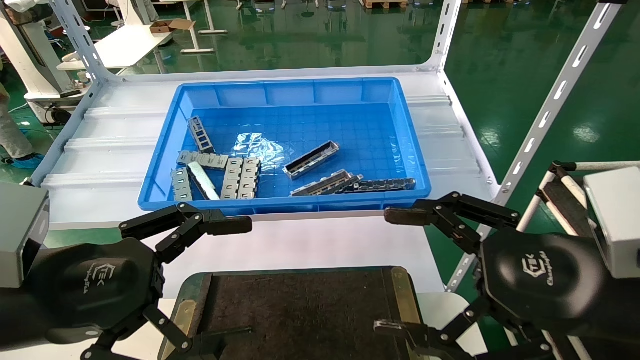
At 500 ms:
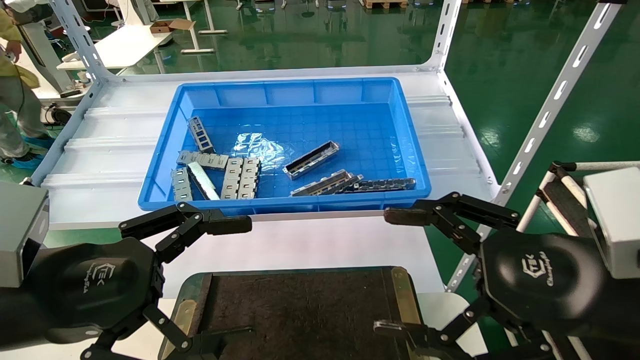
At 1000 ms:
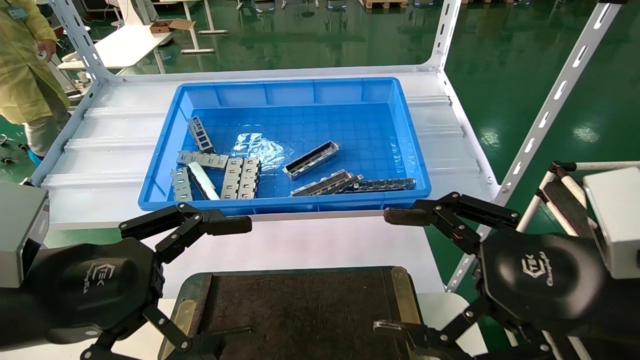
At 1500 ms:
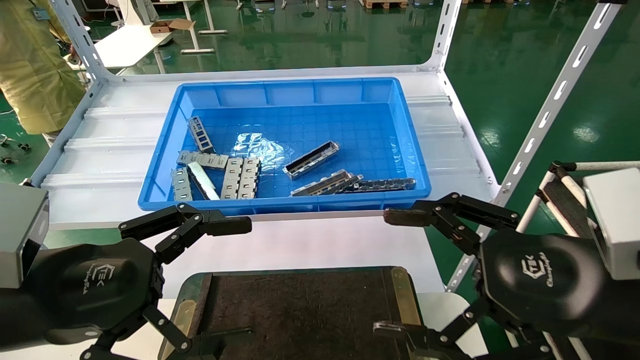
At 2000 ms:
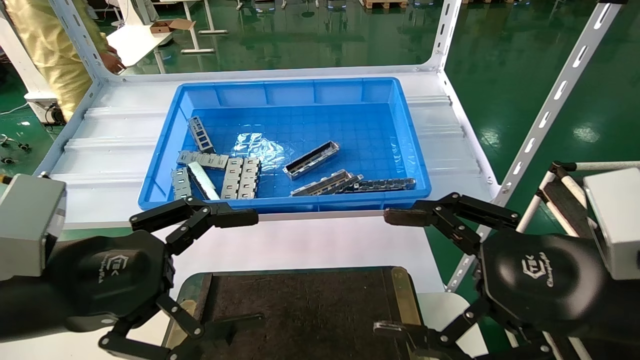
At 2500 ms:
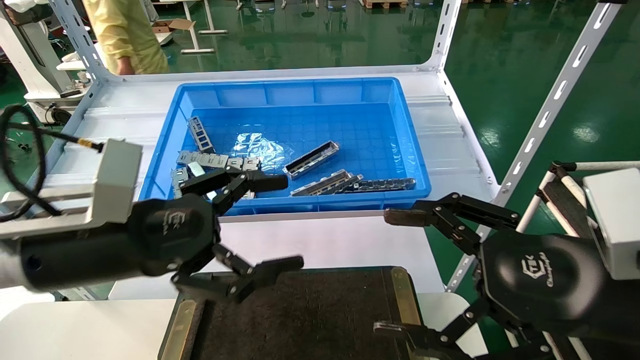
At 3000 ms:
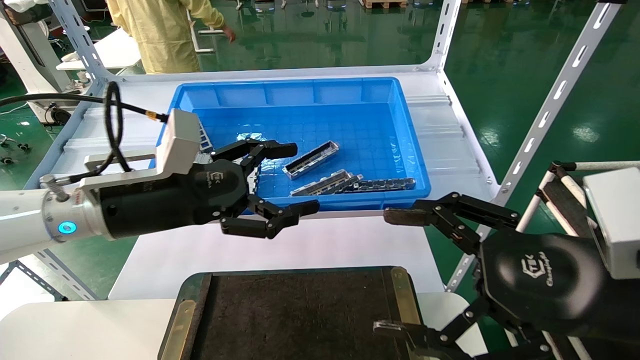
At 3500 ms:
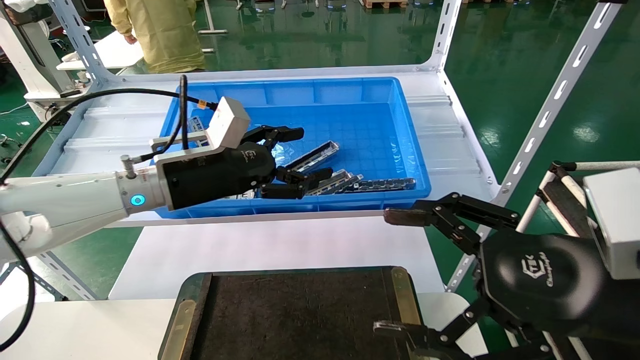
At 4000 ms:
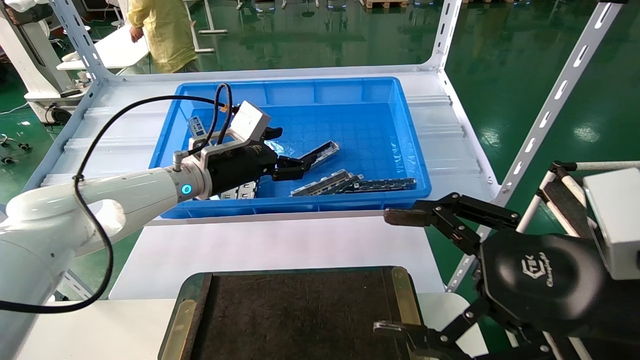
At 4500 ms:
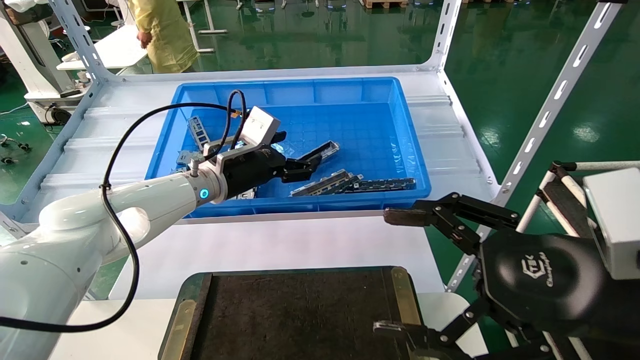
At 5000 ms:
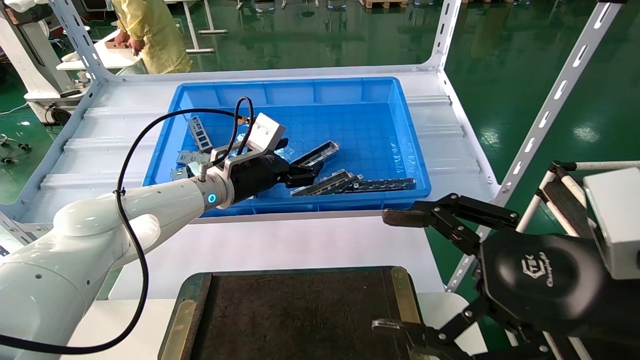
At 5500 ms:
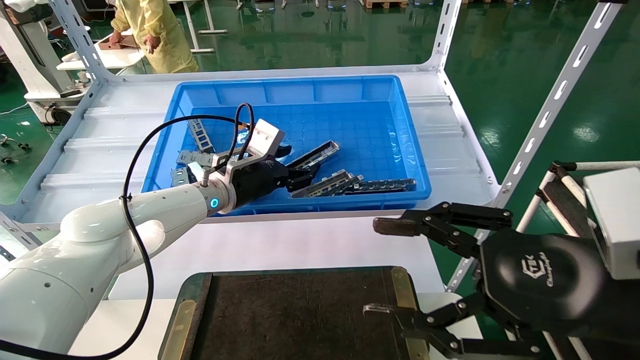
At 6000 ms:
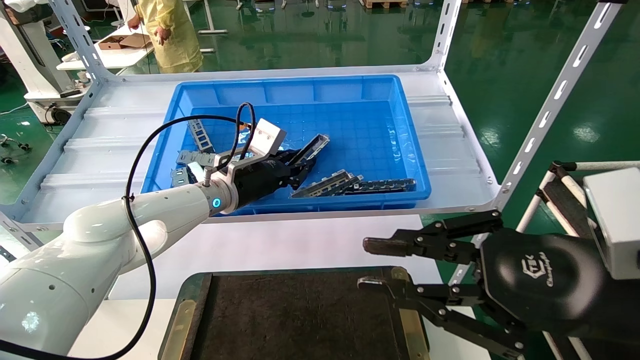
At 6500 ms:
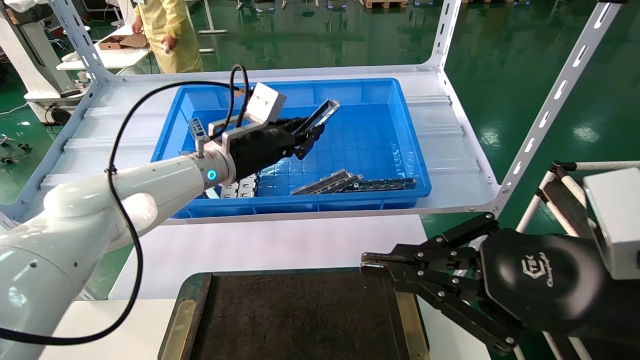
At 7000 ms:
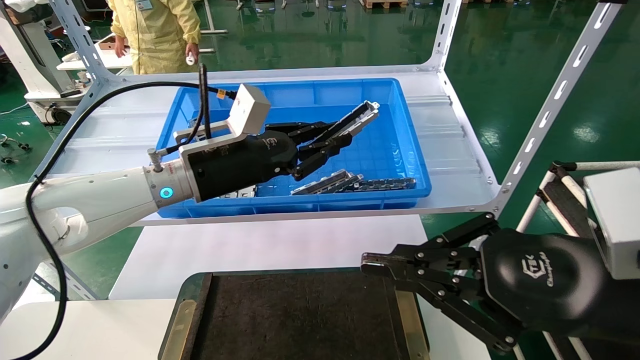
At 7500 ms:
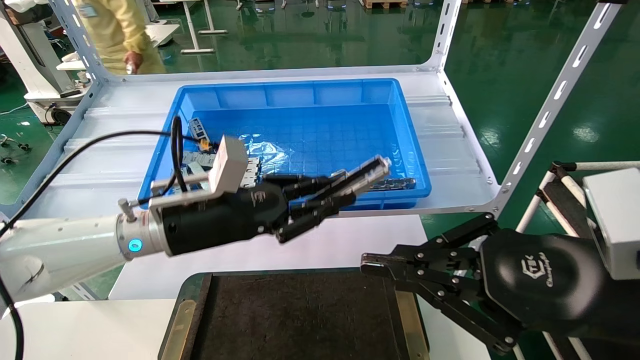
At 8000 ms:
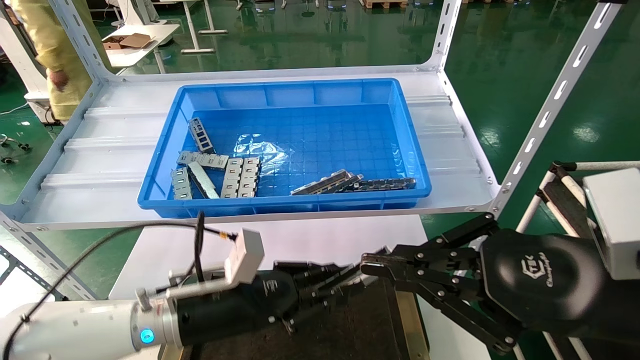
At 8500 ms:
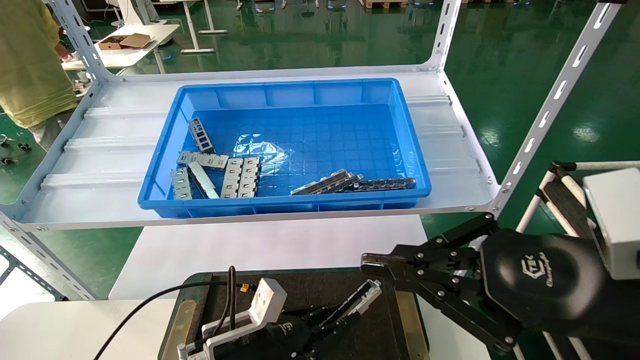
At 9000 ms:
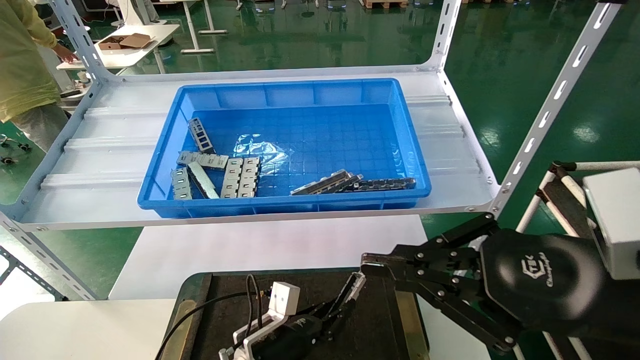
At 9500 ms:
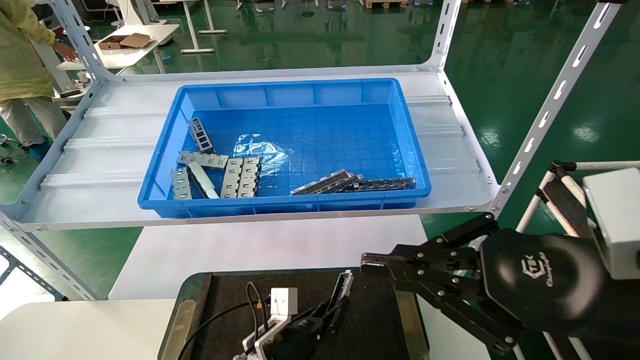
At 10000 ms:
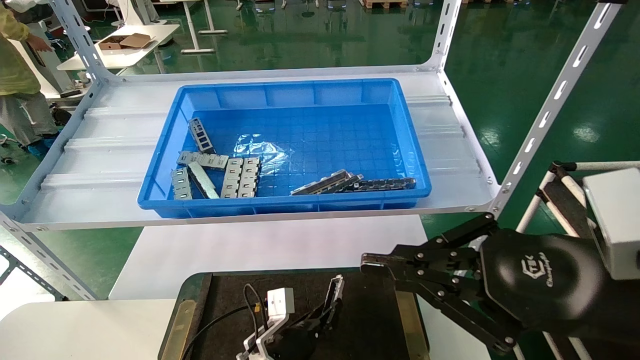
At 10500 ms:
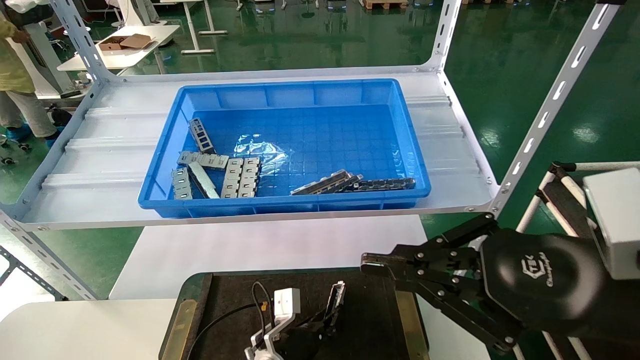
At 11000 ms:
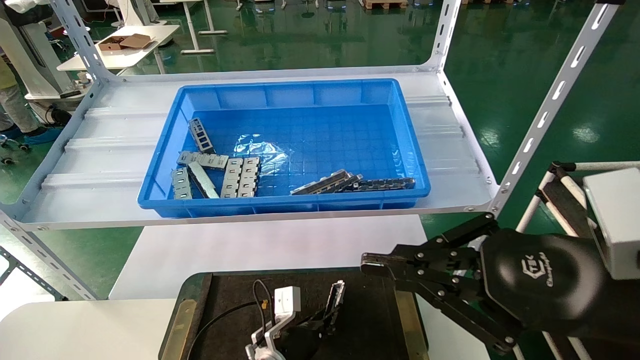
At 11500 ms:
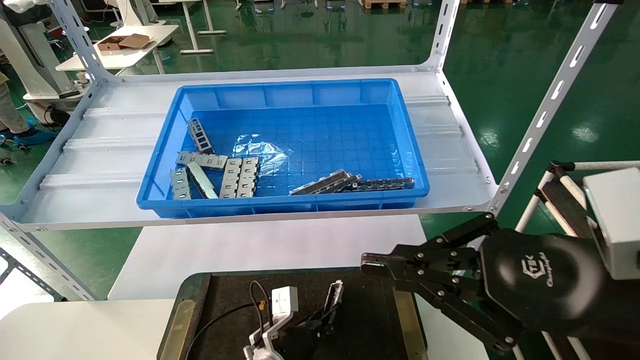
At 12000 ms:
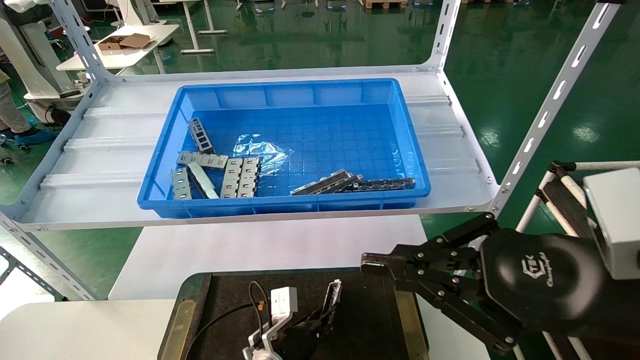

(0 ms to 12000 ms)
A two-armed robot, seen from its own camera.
Task of the whole recording: Grasp the part with one hand and place it on the black container.
Step, 2500 ms - 7000 ms: Pick up the front USB bracket from the feeding area.
0 ms - 2000 ms: The grippers move only a little.
2000 ms - 4000 ms: The left gripper travels forward by about 25 cm.
4000 ms - 6000 ms: The right gripper closes its fingers; the left gripper closes.
6000 ms - 8000 ms: The left gripper shifts about 20 cm backward and downward; the right gripper closes up.
8000 ms - 10000 ms: The left gripper goes some 20 cm downward and to the right.
10000 ms - 12000 ms: The grippers move only a little.

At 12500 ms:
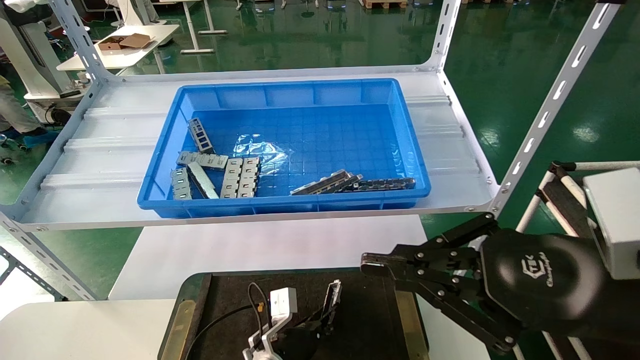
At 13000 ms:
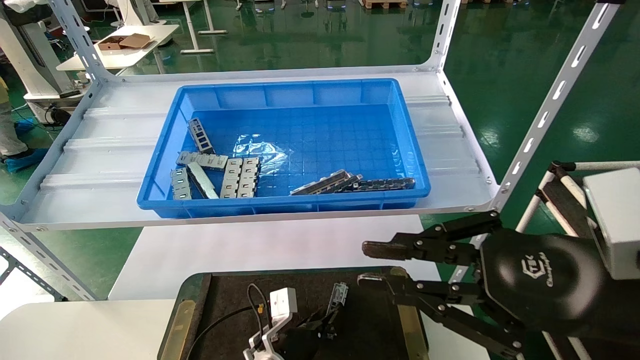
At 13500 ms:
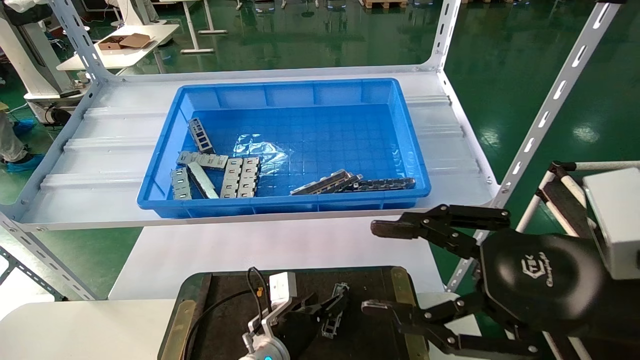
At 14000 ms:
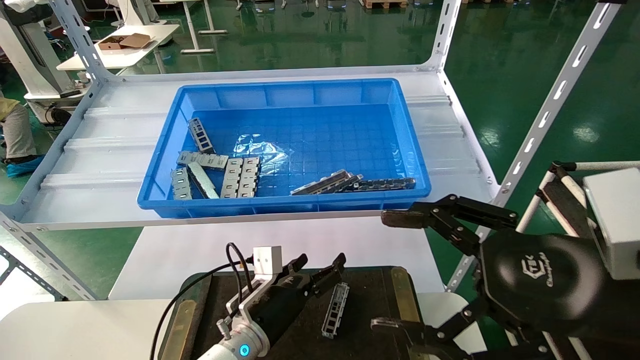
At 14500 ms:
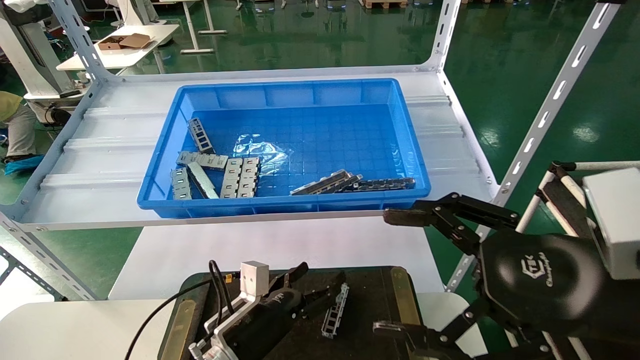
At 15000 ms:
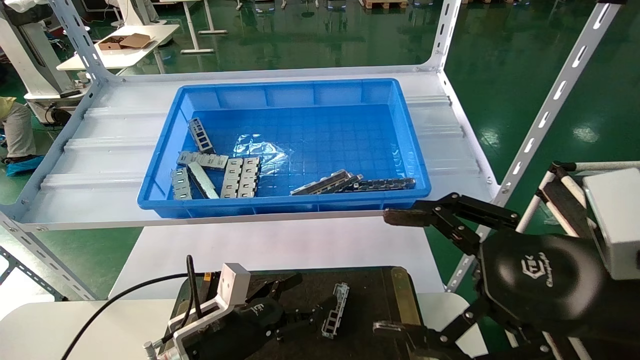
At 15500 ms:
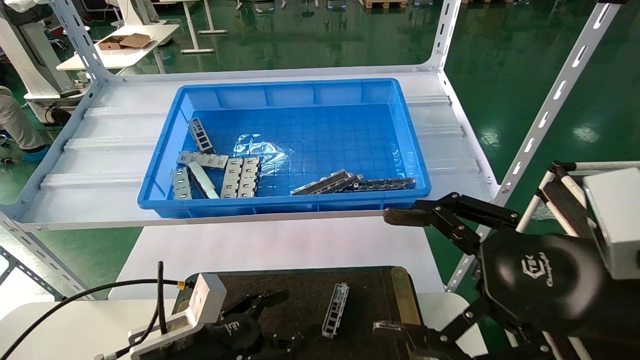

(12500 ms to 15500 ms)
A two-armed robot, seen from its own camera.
Task of the whole recording: Grasp the part with one hand and place it on the black container.
12500 ms - 14000 ms: The right gripper opens its fingers. The left gripper shifts approximately 5 cm upward, and opens.
14000 ms - 15500 ms: The left gripper is displaced to the left and backward by approximately 15 cm.
